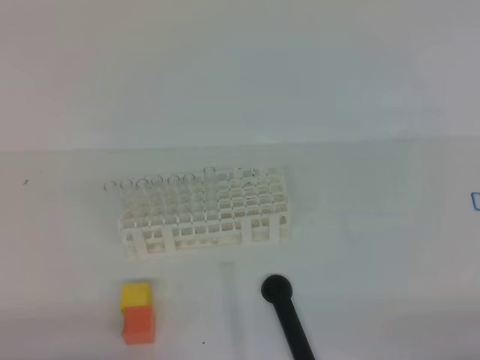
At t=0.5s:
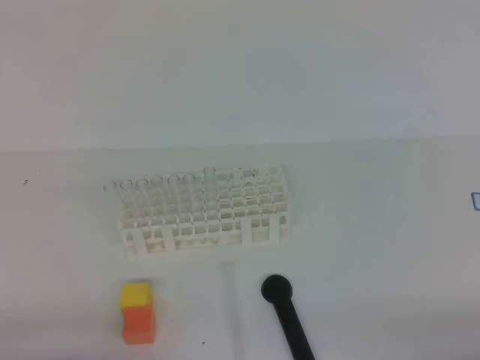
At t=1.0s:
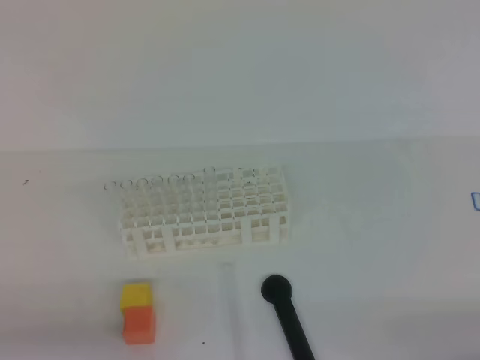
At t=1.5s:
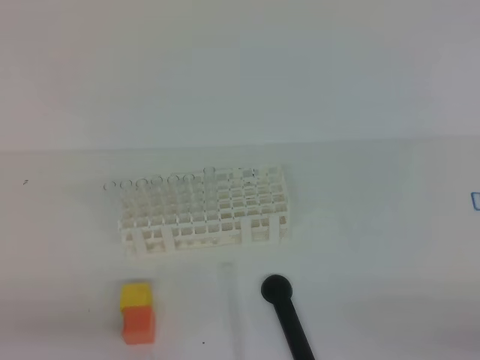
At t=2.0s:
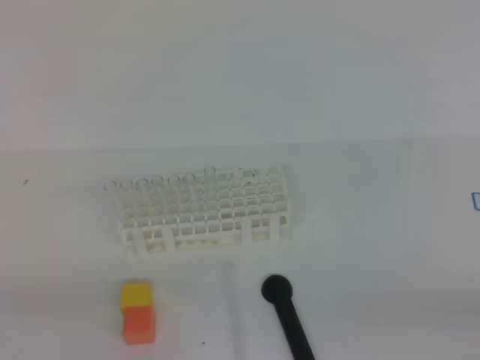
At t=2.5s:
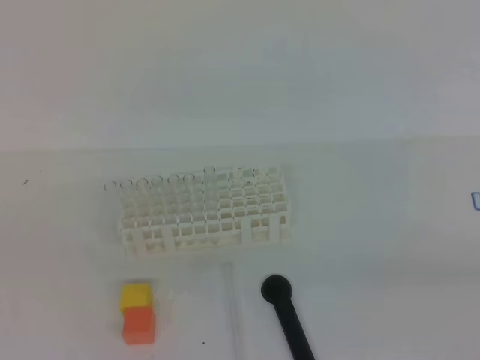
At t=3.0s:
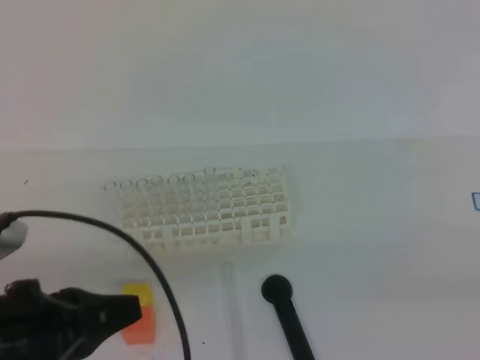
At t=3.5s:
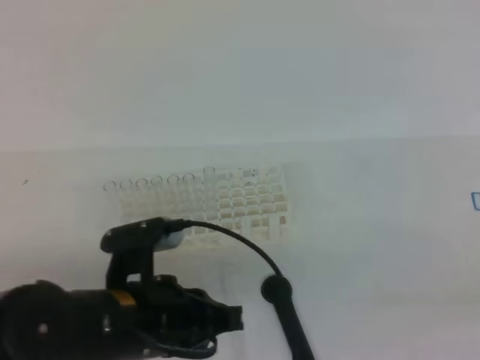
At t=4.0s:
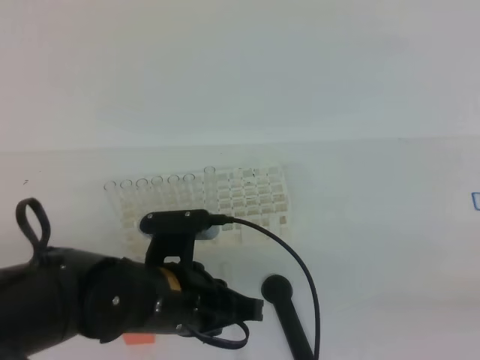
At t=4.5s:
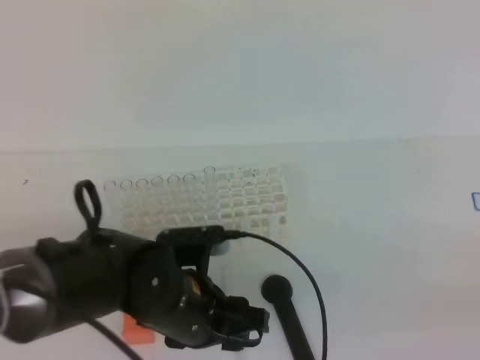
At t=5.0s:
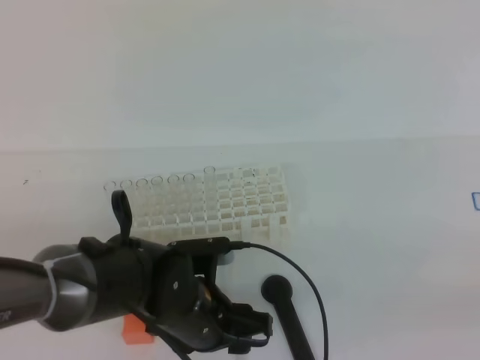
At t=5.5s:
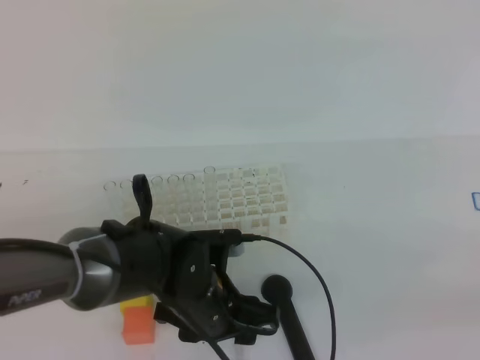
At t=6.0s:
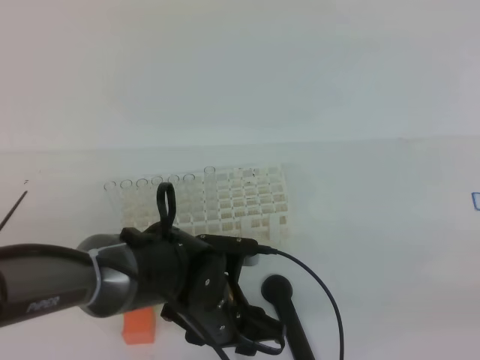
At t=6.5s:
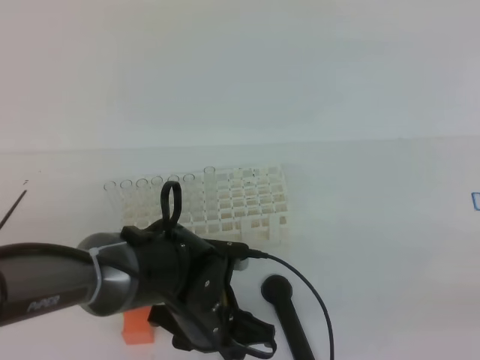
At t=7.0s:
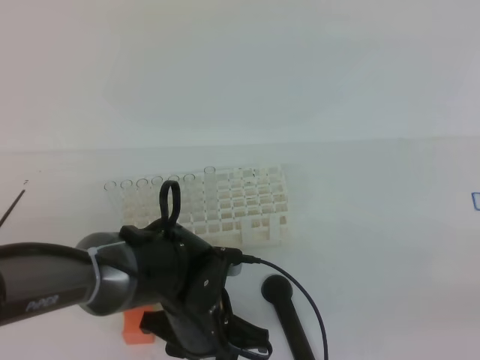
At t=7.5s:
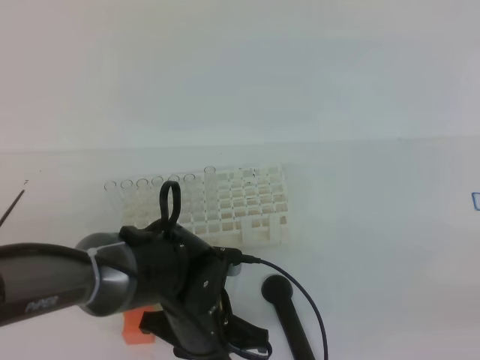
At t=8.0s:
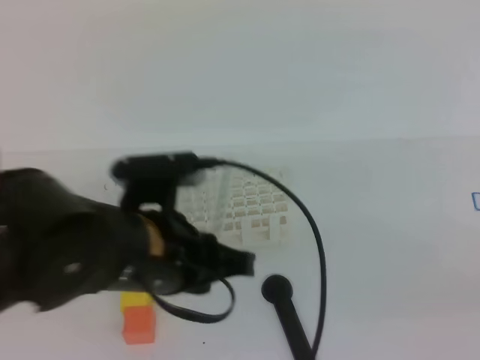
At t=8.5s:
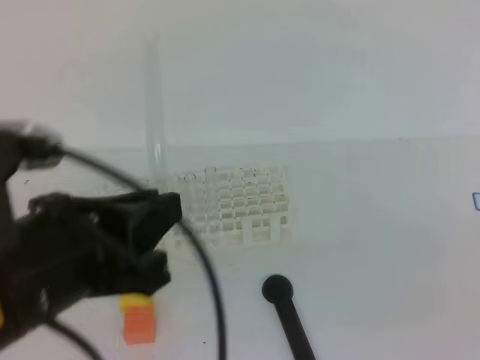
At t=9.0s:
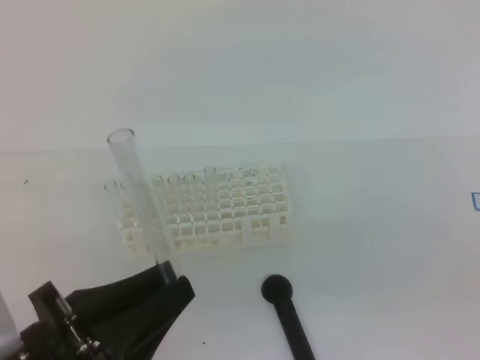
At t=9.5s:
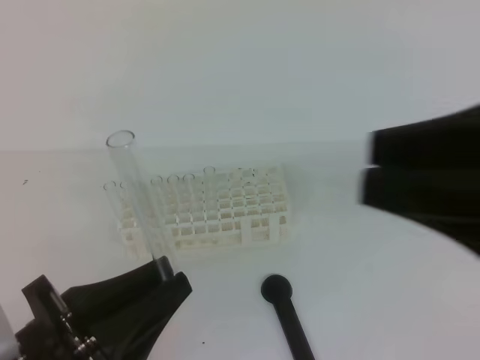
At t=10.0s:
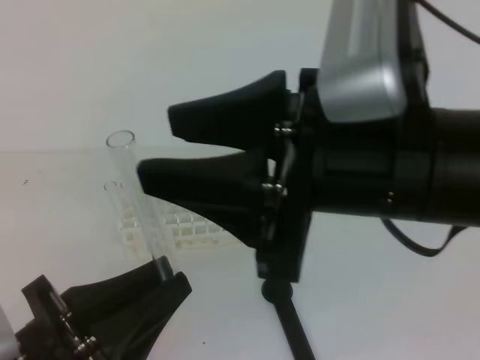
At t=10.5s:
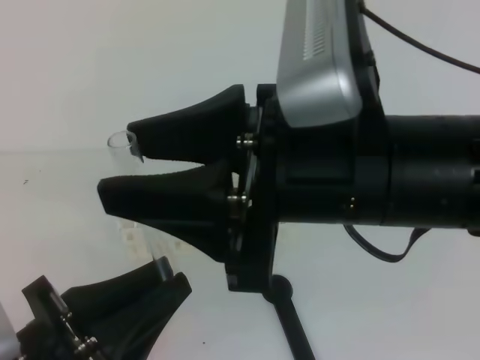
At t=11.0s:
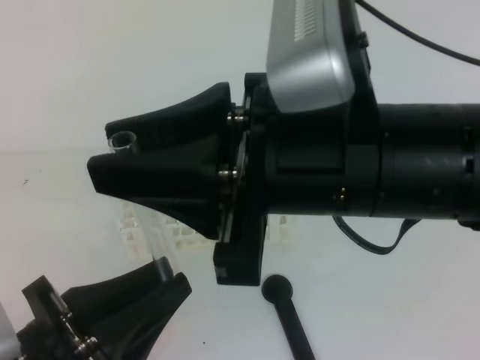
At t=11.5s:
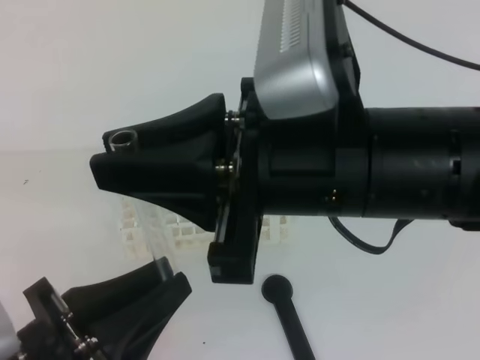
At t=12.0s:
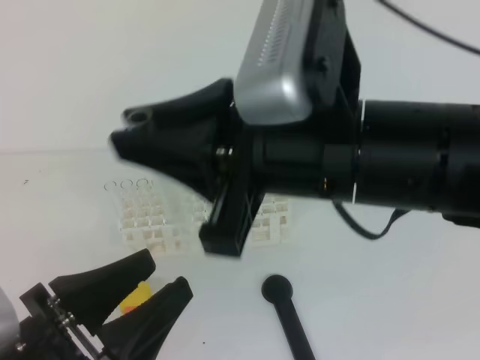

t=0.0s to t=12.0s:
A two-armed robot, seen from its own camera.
t=2.0s to t=4.0s: The right gripper travels upward by about 10 cm, while the left gripper travels to the right and forward by some 25 cm.
t=4.0s to t=6.0s: The left gripper travels downward by some 5 cm, and opens up.
t=6.0s to t=8.0s: The left gripper goes about 15 cm upward, and closes its fingers.
t=8.0s to t=10.0s: The right gripper goes about 25 cm to the left and forward, and opens up; the left gripper goes about 15 cm backward and to the left.
t=10.0s to t=12.0s: The left gripper opens up. Meanwhile the right gripper closes up.

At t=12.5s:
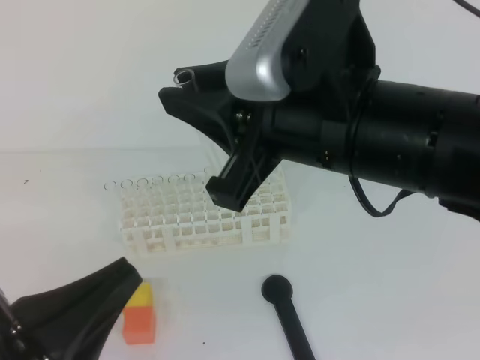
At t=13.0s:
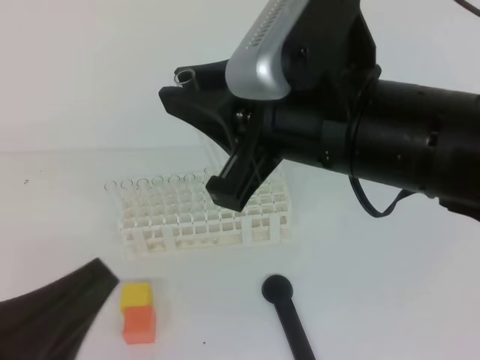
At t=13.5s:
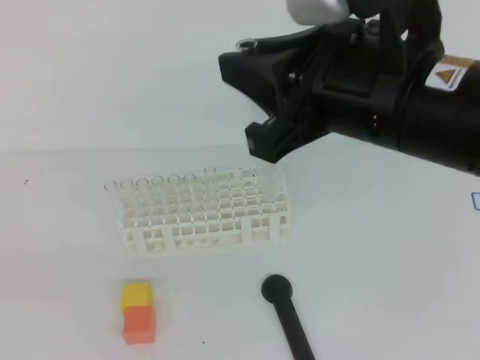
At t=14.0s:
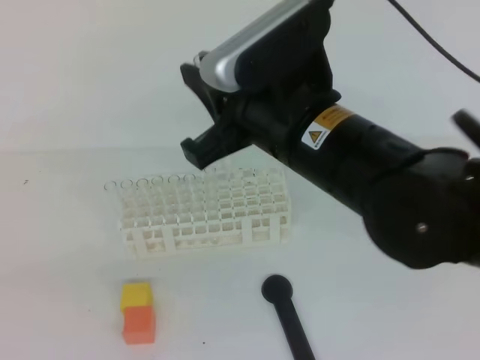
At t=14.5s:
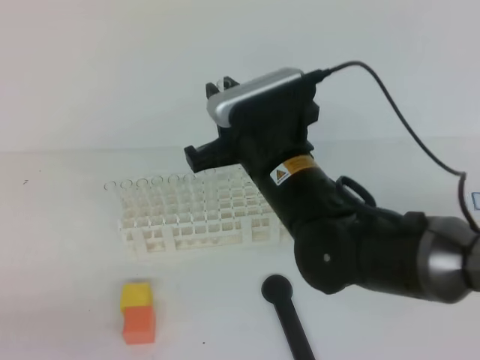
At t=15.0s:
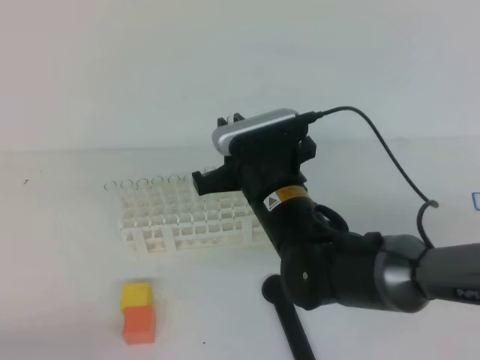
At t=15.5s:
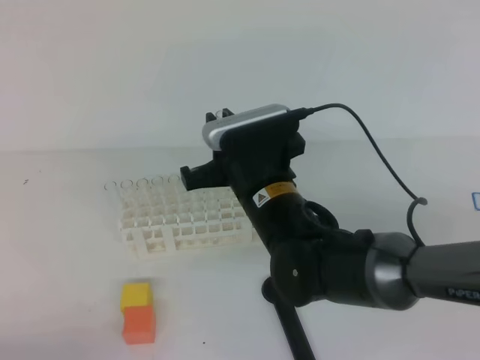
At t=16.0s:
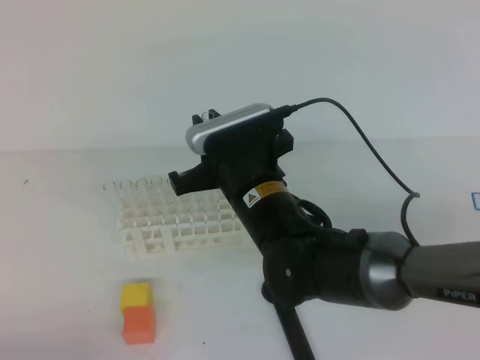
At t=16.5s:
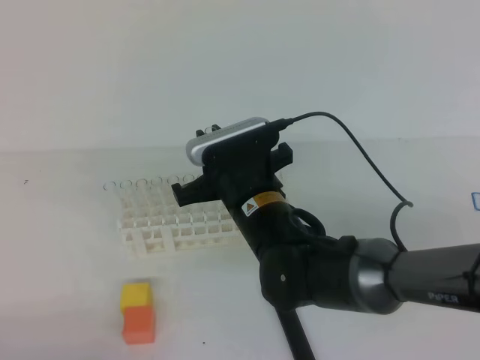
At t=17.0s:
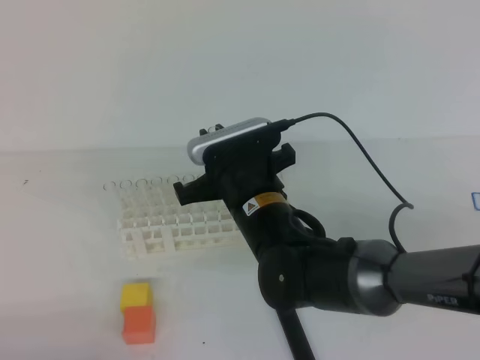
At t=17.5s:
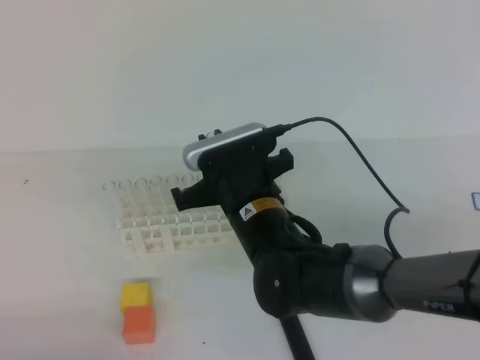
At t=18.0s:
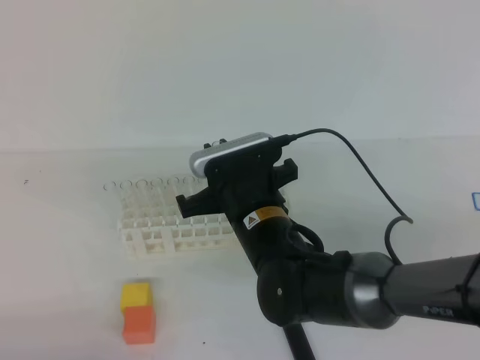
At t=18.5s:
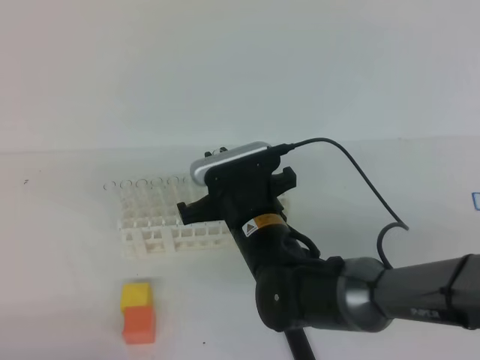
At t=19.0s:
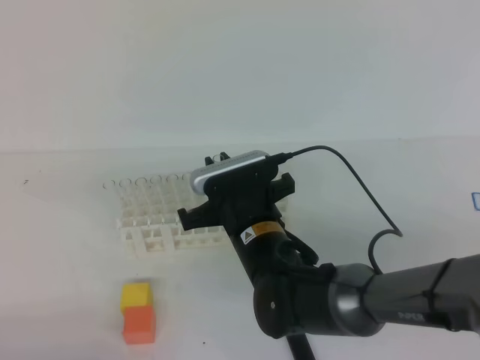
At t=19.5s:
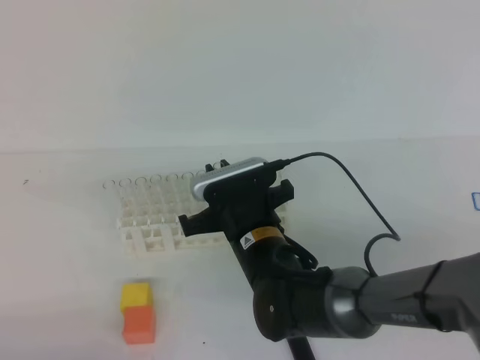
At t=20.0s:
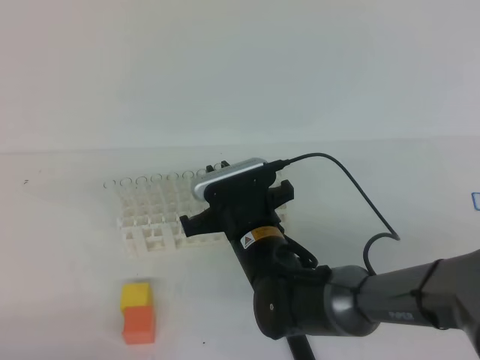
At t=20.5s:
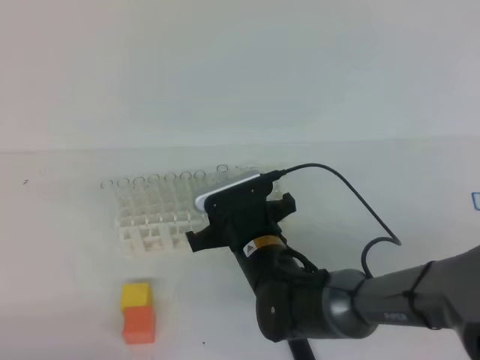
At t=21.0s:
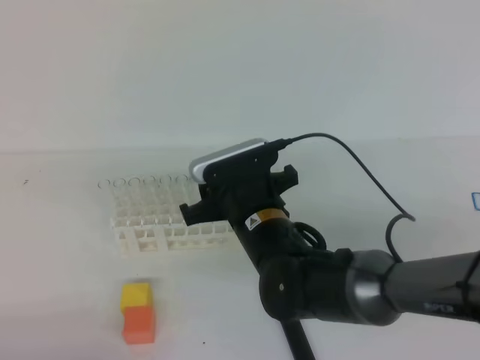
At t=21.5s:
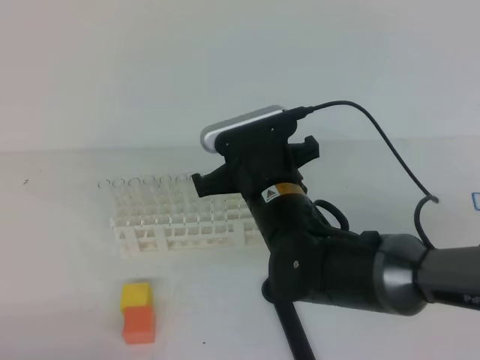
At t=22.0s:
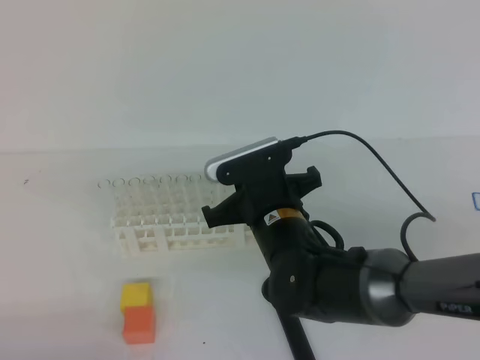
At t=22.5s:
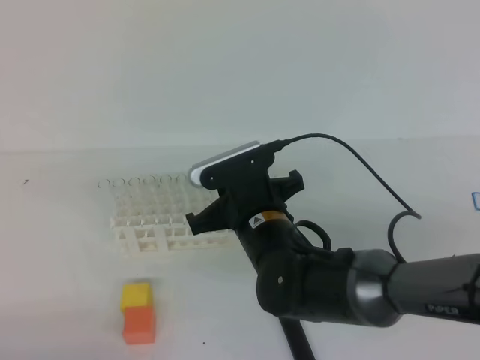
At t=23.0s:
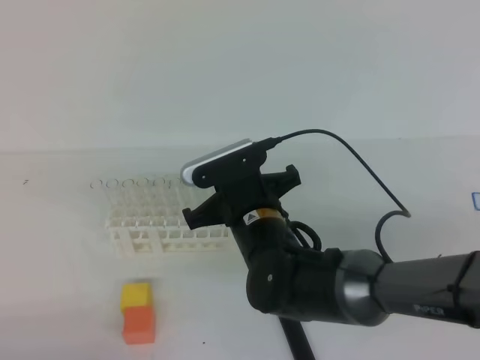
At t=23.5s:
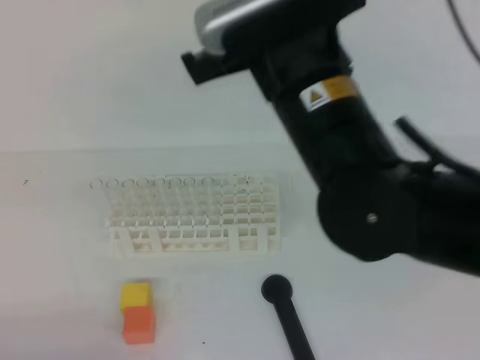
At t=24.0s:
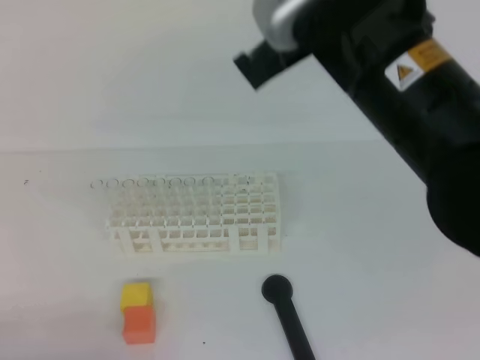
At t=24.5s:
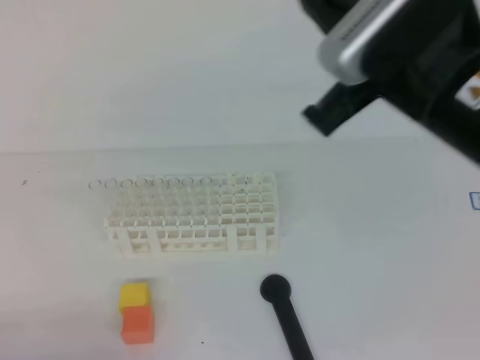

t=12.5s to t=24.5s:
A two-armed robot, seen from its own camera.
t=12.5s to t=14.5s: The left gripper goes some 10 cm to the left and downward. The right gripper goes about 15 cm downward and forward.
t=14.5s to t=16.5s: The right gripper heads downward, covering roughly 5 cm.
t=16.5s to t=18.5s: There are only small adjustments of the grippers.
t=18.5s to t=20.5s: There are only small adjustments of the grippers.
t=20.5s to t=22.5s: The right gripper closes its fingers.
t=22.5s to t=24.5s: The right gripper moves upward and to the right, about 25 cm.
